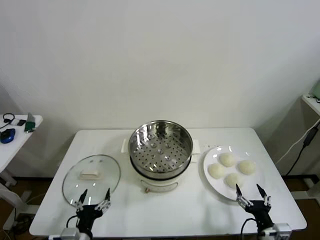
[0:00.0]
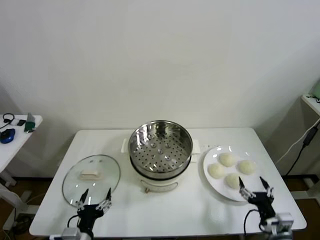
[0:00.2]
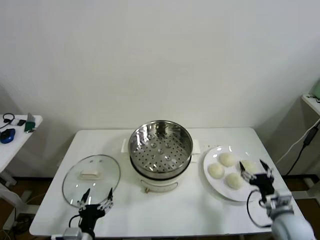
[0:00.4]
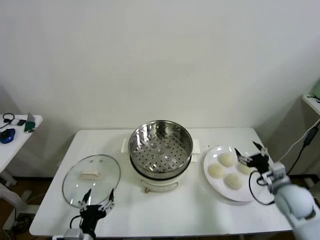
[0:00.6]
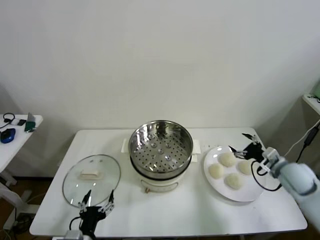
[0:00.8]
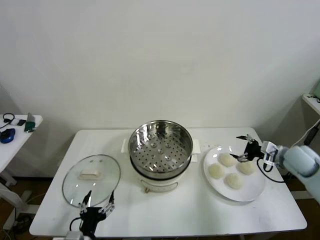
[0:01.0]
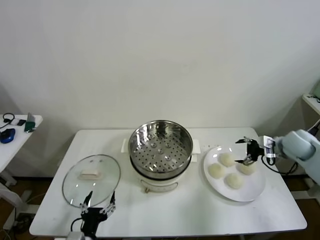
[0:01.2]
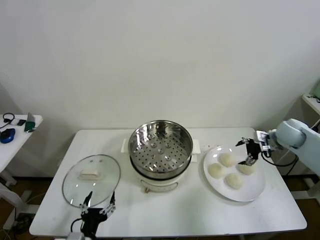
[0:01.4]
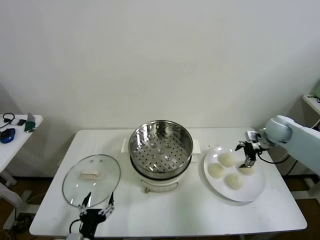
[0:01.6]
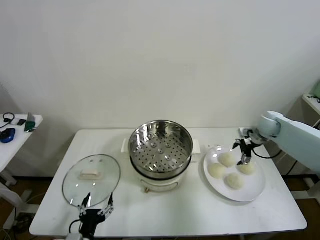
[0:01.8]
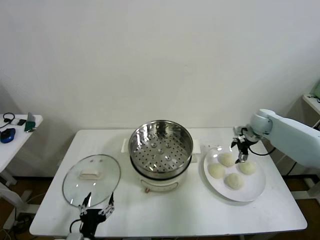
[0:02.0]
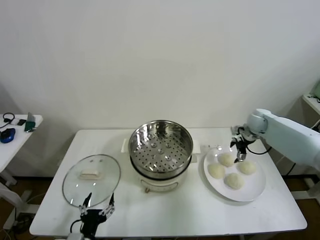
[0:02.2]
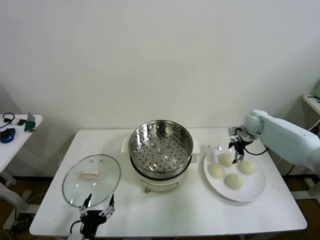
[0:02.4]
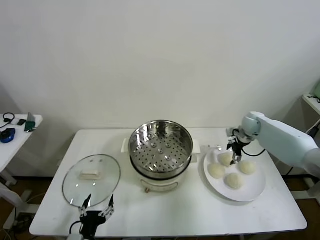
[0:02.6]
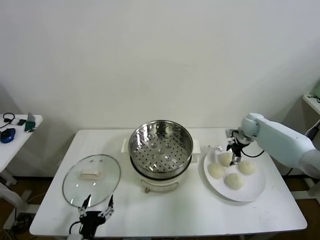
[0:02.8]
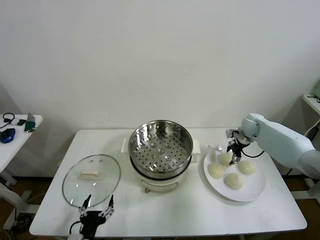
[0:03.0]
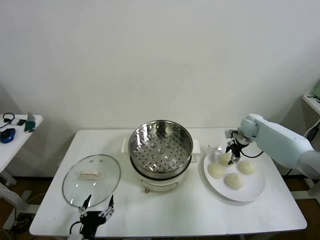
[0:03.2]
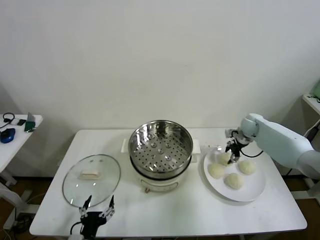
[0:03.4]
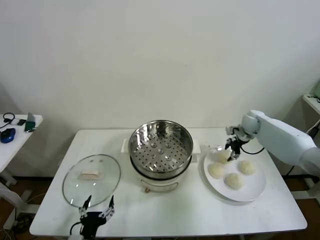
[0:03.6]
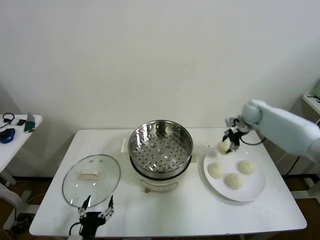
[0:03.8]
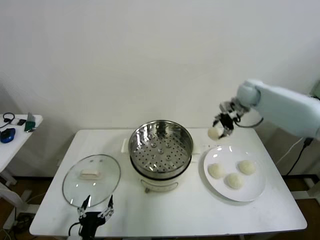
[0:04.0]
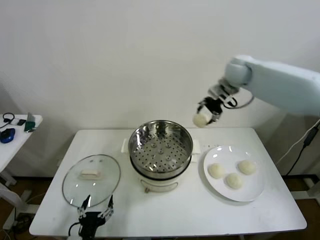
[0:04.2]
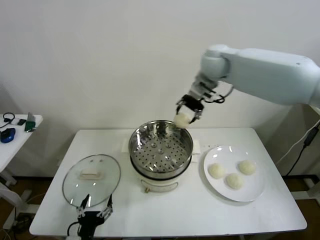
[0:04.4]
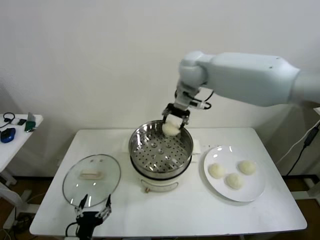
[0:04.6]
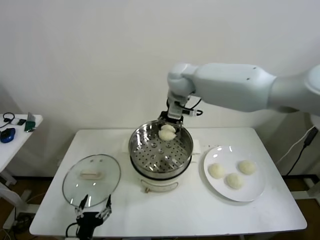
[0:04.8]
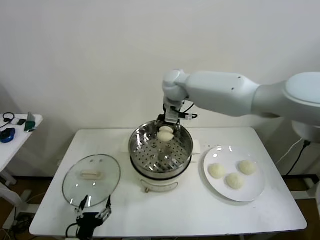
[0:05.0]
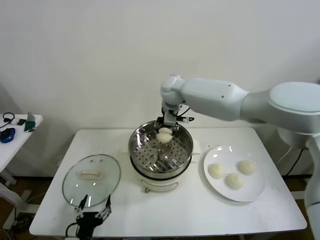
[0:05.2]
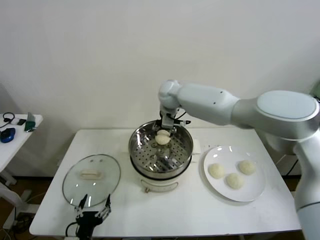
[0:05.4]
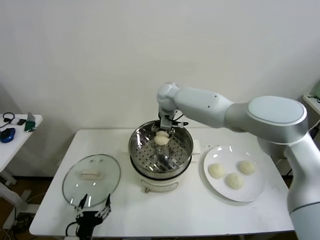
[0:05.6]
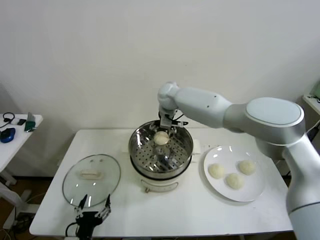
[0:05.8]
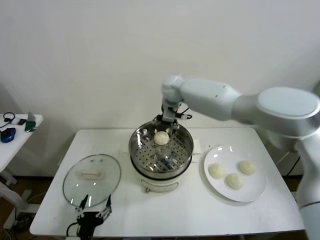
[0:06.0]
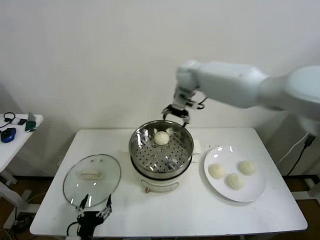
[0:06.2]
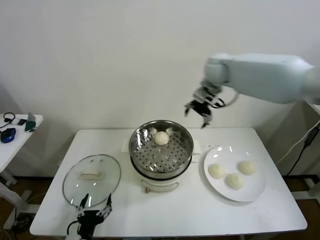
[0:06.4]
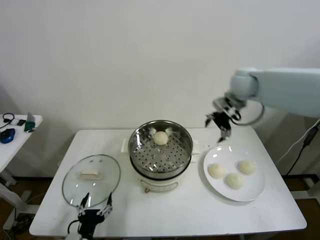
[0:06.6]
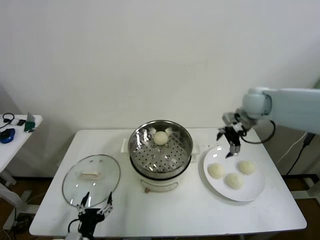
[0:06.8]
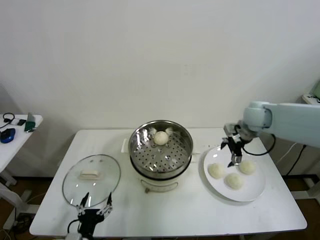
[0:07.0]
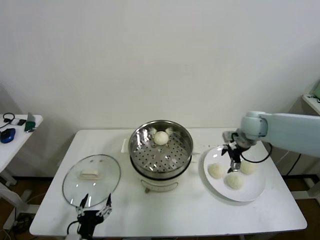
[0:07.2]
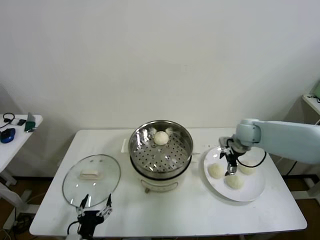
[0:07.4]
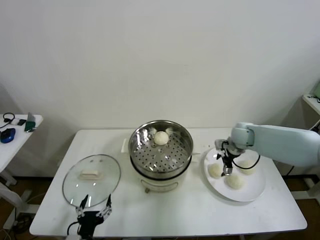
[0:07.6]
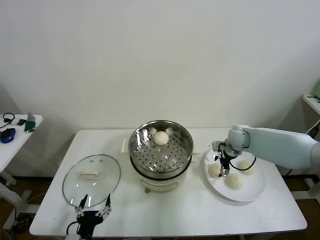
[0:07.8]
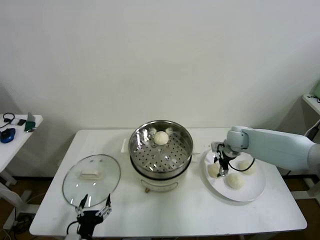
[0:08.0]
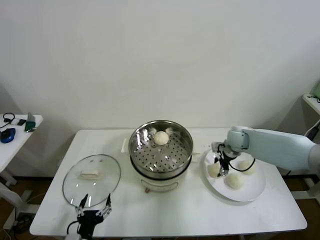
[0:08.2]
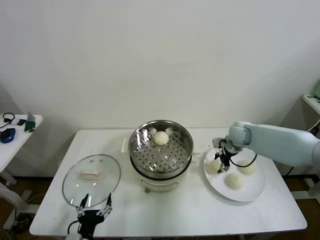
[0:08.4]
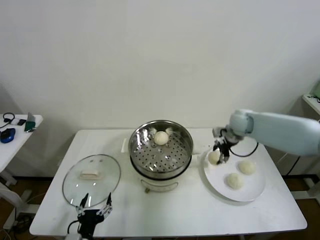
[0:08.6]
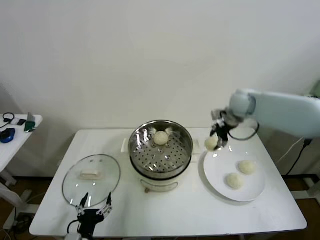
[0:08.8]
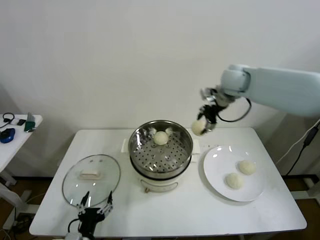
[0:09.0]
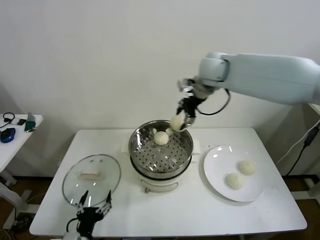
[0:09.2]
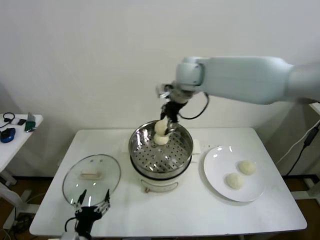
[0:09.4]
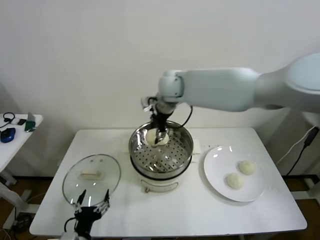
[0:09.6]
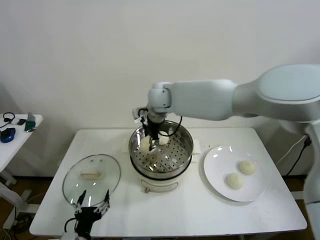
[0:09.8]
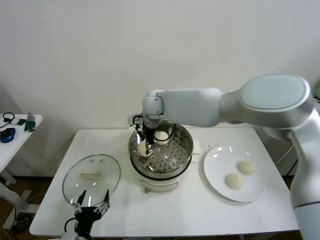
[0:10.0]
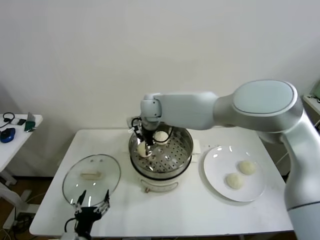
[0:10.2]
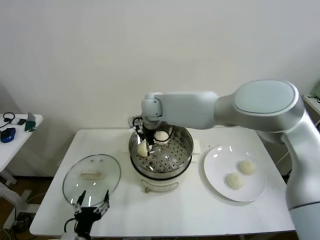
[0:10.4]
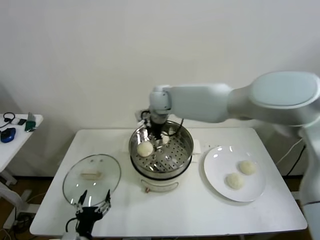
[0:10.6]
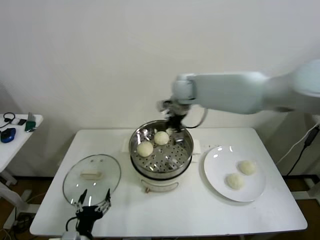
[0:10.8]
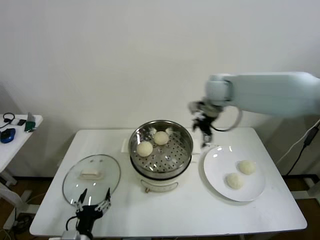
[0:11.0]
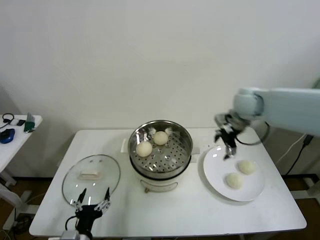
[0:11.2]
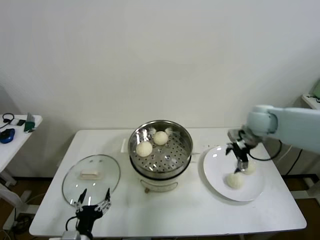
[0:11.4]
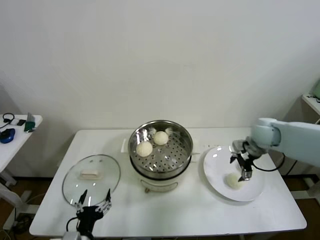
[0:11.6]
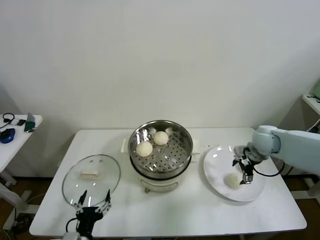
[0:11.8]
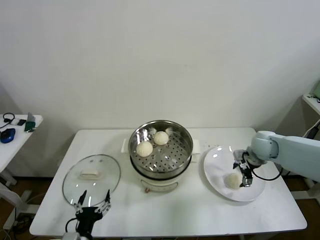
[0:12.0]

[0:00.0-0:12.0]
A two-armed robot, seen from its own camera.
Step, 0:00.0 to 0:03.4: Grasp the baozi in the plate with right gripper.
Step, 0:03.6 to 0:05.6: Place the baozi on the steamer with right gripper.
Step, 0:06.0 to 0:08.2: Grasp the baozi in the plate with right gripper.
Step, 0:08.4 to 0:10.2: Place the baozi on the steamer with right gripper.
0:01.6 to 0:03.0: The right gripper goes about 10 cm forward and downward, and closes.
0:03.0 to 0:04.4: The right gripper is displaced upward and to the left by roughly 40 cm.
0:04.4 to 0:06.0: The right gripper is displaced downward, to the left and forward by approximately 10 cm, and opens up.
0:06.0 to 0:07.6: The right gripper travels to the right and downward by roughly 30 cm.
0:07.6 to 0:09.0: The right gripper goes roughly 25 cm upward and to the left, and closes its fingers.
0:09.0 to 0:10.4: The right gripper heads to the left and downward, covering roughly 25 cm, and opens its fingers.
0:10.4 to 0:12.0: The right gripper is displaced to the right by roughly 40 cm.

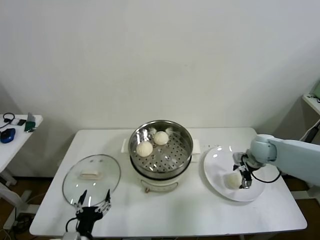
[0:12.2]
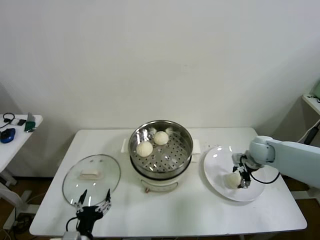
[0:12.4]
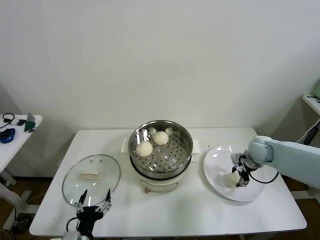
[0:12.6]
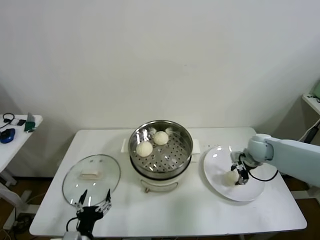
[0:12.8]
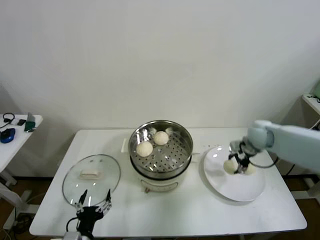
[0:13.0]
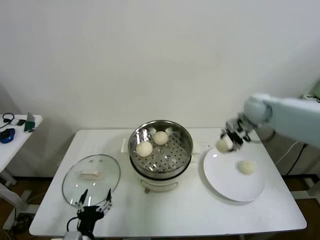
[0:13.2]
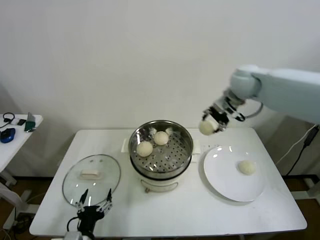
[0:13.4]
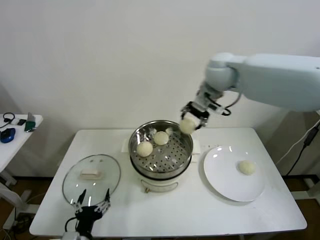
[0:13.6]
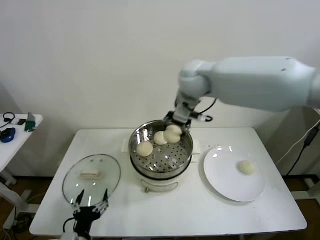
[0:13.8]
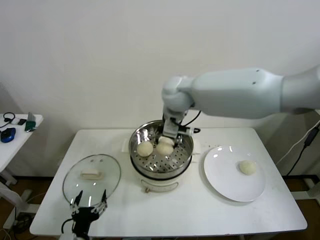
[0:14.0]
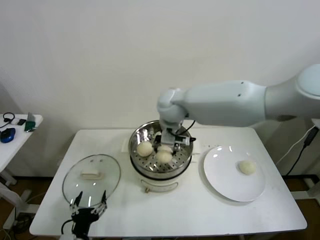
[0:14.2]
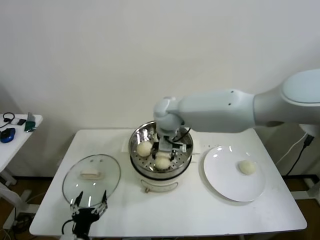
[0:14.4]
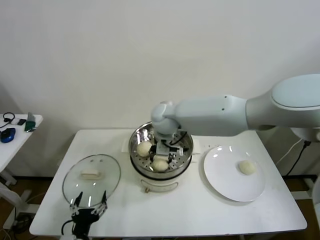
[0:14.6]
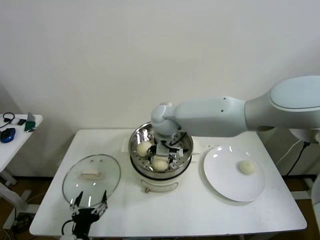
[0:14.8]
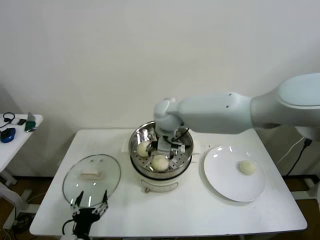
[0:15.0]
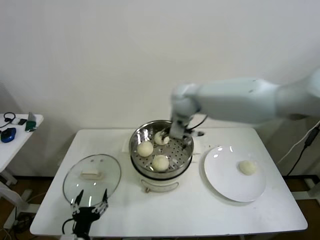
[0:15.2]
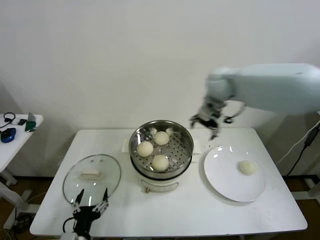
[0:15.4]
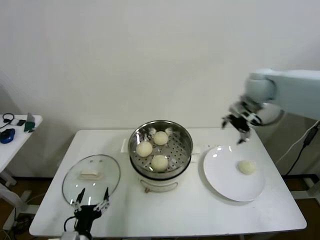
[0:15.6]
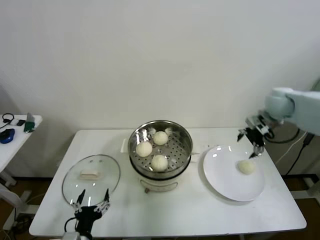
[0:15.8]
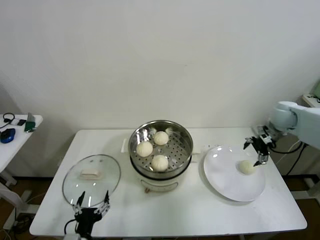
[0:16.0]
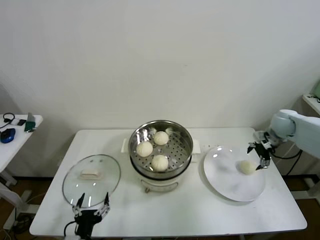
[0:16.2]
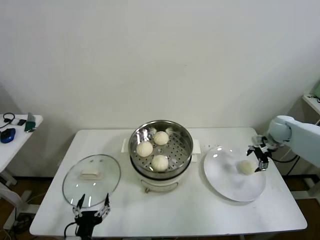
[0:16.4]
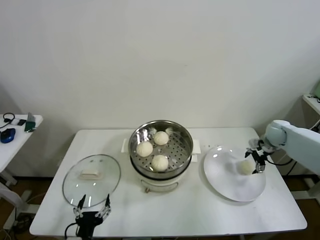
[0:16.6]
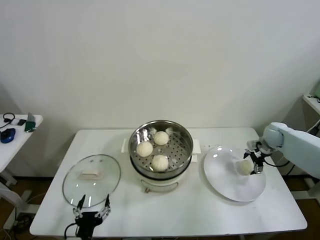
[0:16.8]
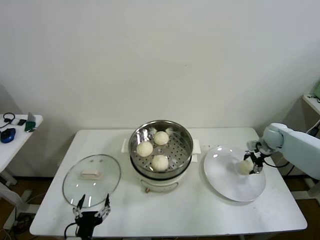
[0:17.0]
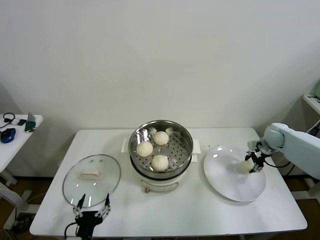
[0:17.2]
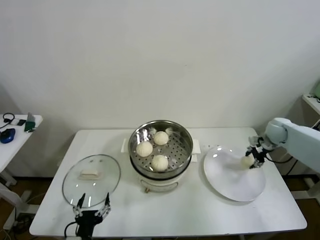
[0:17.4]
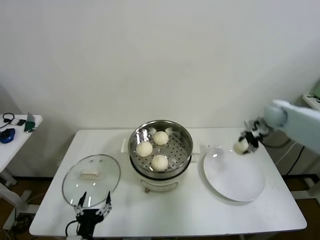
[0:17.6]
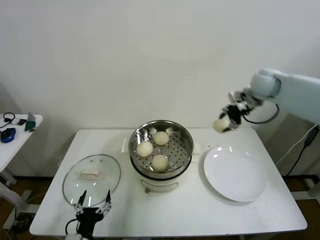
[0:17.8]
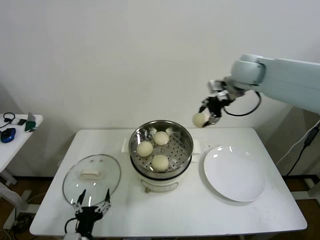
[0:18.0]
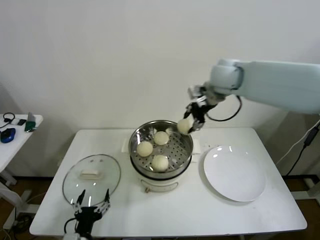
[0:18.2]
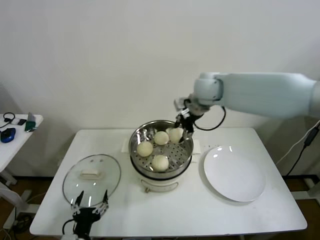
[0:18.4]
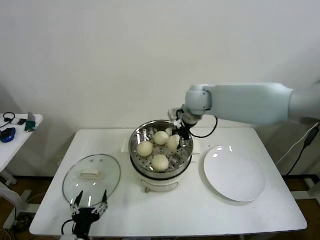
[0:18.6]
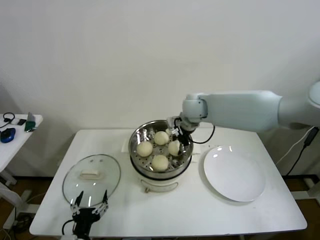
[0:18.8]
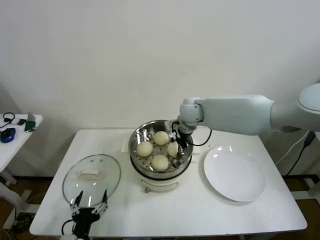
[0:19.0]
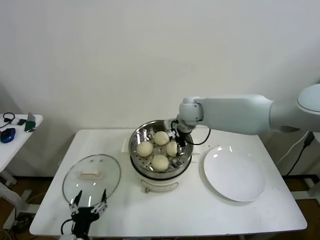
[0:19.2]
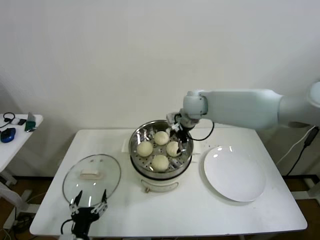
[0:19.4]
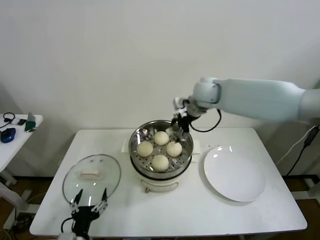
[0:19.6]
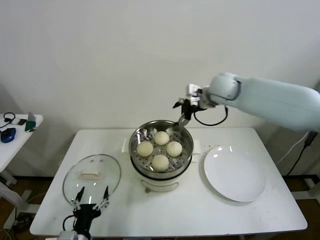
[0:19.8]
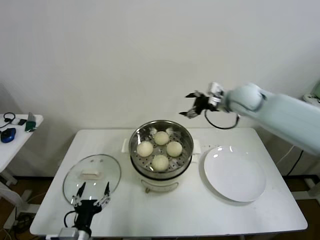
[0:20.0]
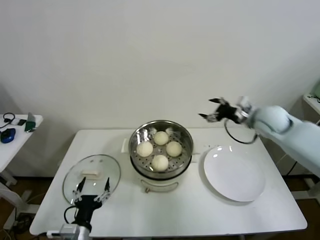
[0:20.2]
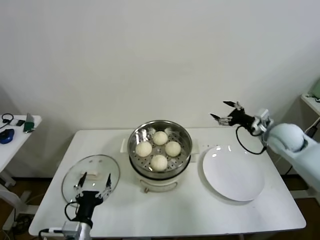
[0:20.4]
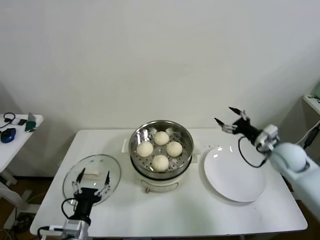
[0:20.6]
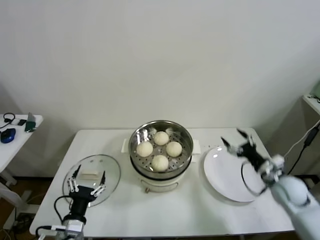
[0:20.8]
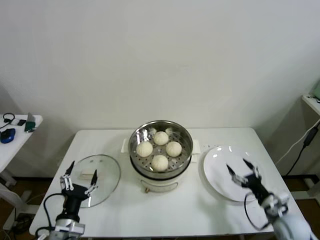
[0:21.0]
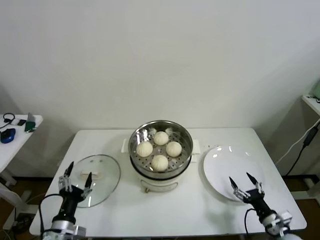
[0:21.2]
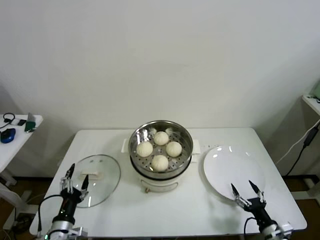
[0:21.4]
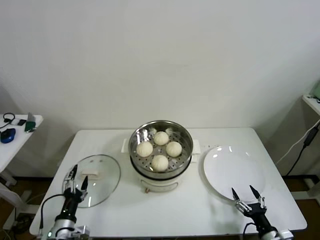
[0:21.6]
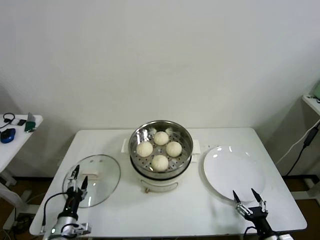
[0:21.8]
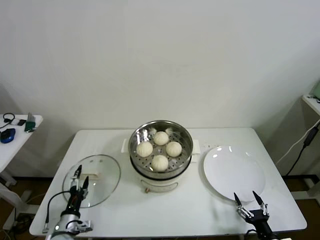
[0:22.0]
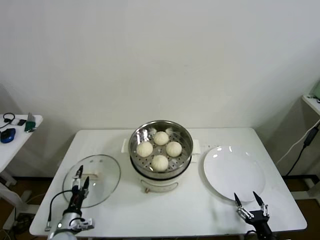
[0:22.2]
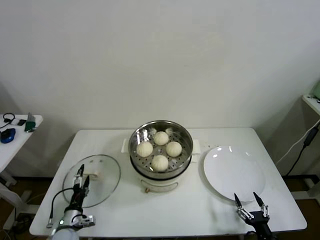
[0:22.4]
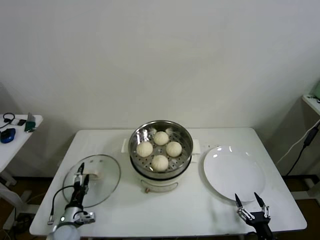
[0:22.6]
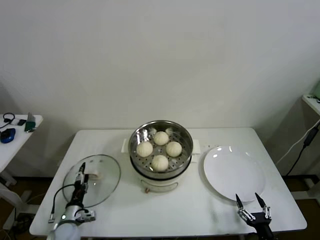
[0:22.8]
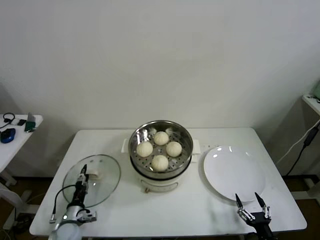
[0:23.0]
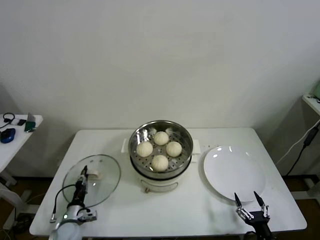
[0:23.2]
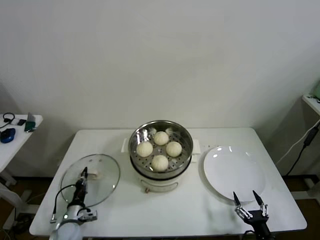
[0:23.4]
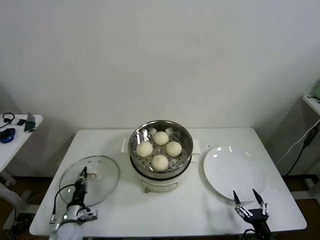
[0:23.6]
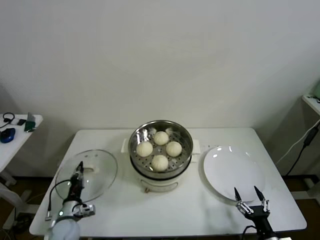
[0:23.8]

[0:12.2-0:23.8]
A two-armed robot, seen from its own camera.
Step, 0:12.6 to 0:14.8: Place the baozi on the steamer with right gripper.
Step, 0:15.0 to 0:17.2: Grasp the baozi in the plate with right gripper.
Step, 0:17.4 to 0:19.0: Place the baozi on the steamer with right gripper.
Step, 0:19.2 to 0:23.4: Grasp the pot lid with left gripper.
0:12.2 to 0:13.6: The right gripper goes about 35 cm upward and to the left, and closes its fingers.
0:13.6 to 0:15.0: The right gripper shifts about 15 cm downward and to the left, and opens its fingers.
0:15.0 to 0:16.6: The right gripper moves to the right, some 40 cm.
0:16.6 to 0:18.0: The right gripper travels upward and to the left by some 35 cm, and closes up.
0:18.0 to 0:19.4: The right gripper moves to the left and downward, roughly 20 cm, and opens up.
0:19.4 to 0:21.0: The right gripper heads to the right, backward and downward, covering about 50 cm. Meanwhile the left gripper ends up some 5 cm from where it was.
0:21.0 to 0:22.4: The right gripper shifts about 15 cm backward and downward, while the left gripper moves downward, forward and to the left, roughly 15 cm.
0:22.4 to 0:23.8: The left gripper closes.
